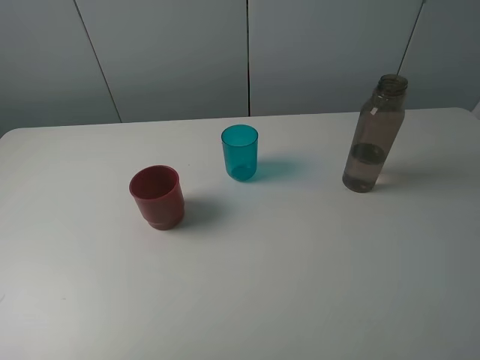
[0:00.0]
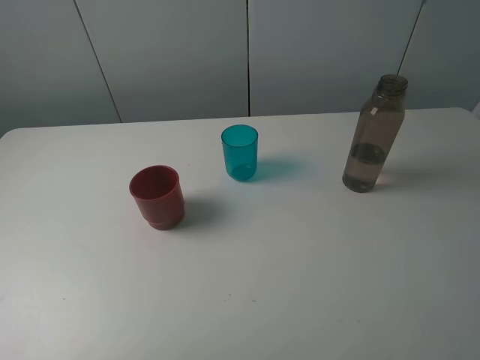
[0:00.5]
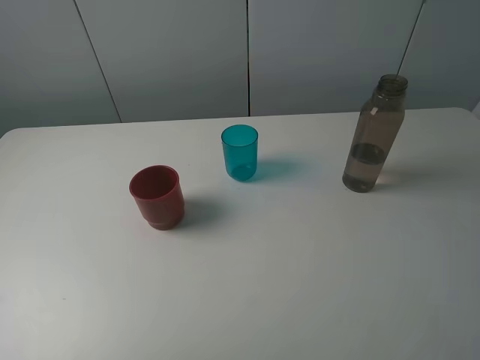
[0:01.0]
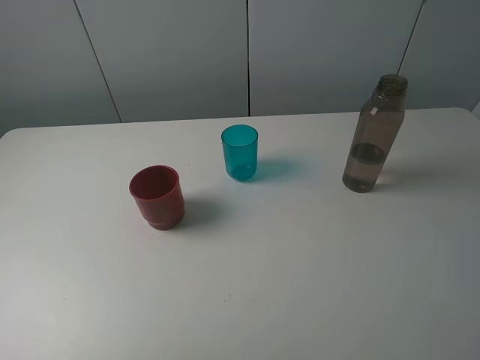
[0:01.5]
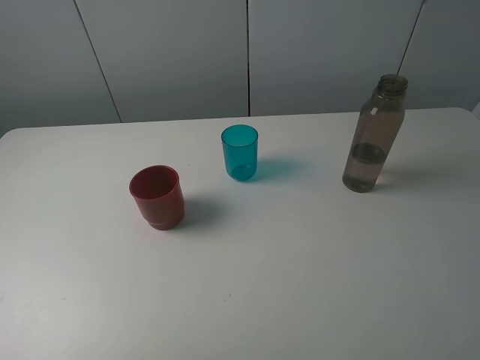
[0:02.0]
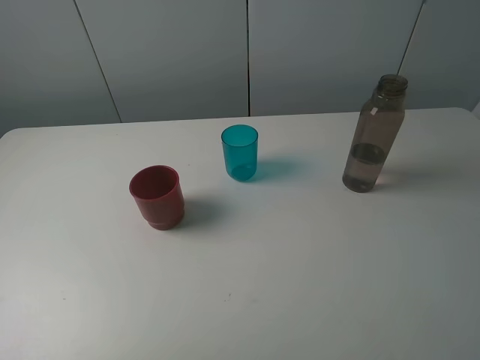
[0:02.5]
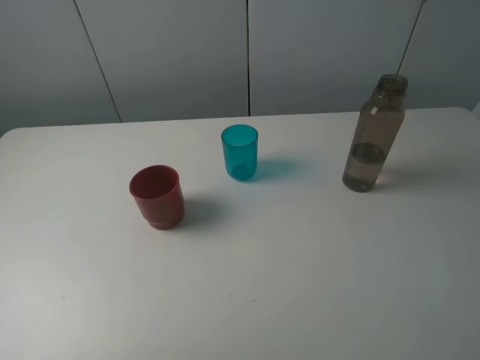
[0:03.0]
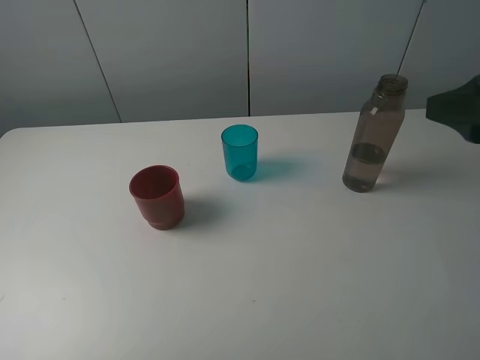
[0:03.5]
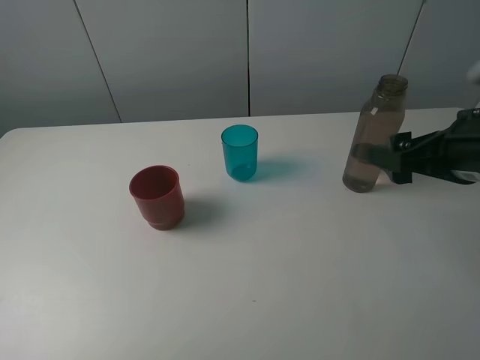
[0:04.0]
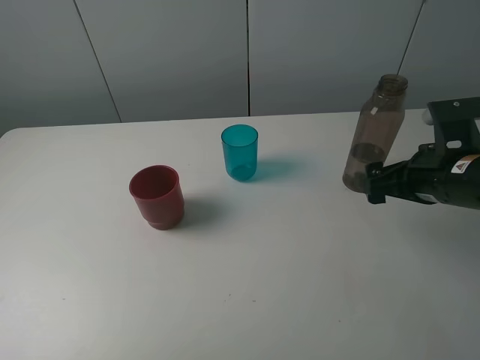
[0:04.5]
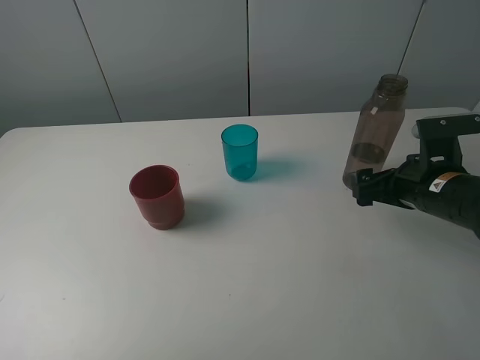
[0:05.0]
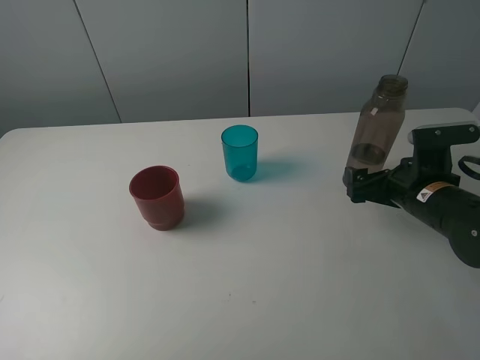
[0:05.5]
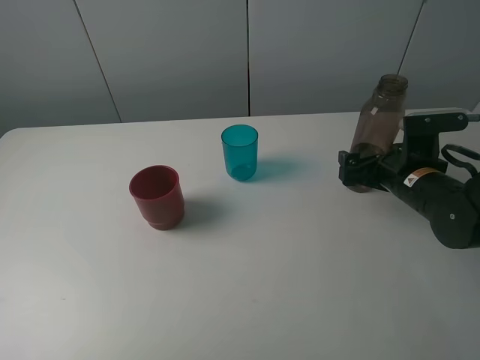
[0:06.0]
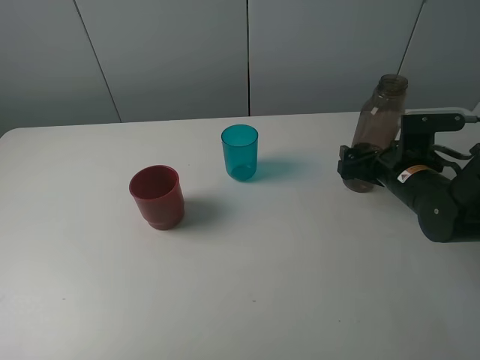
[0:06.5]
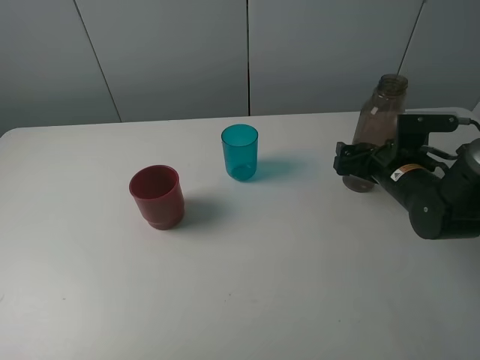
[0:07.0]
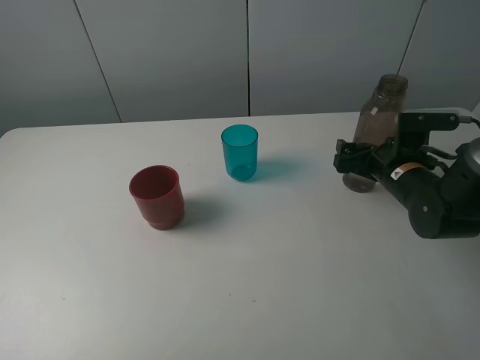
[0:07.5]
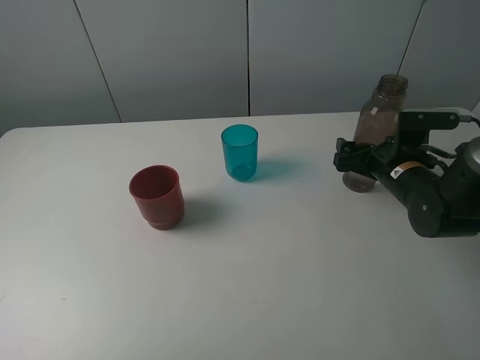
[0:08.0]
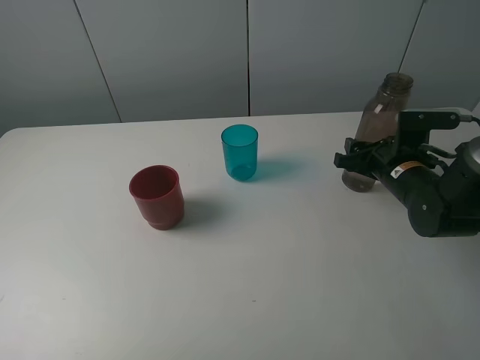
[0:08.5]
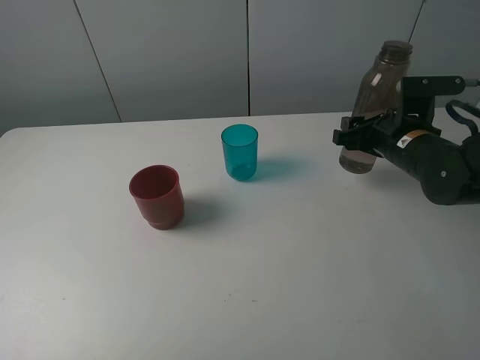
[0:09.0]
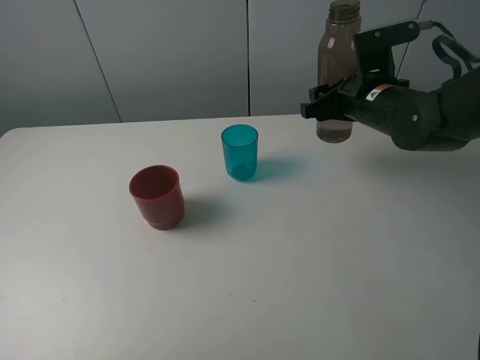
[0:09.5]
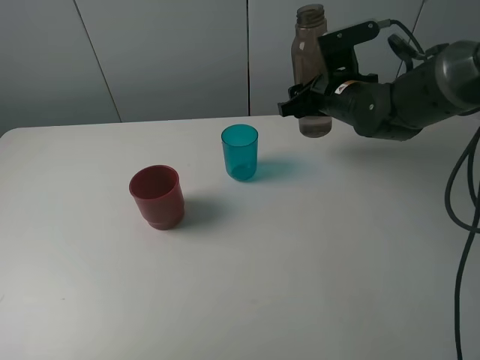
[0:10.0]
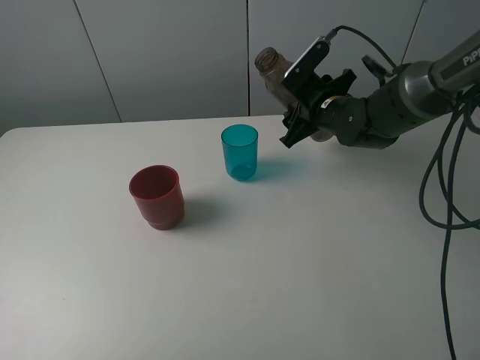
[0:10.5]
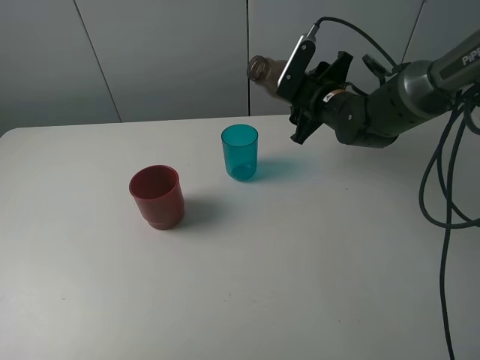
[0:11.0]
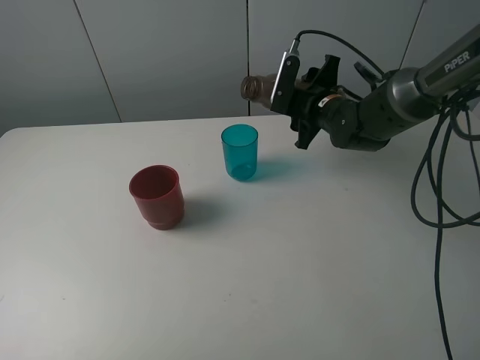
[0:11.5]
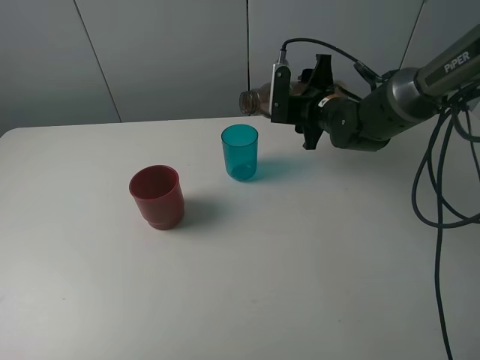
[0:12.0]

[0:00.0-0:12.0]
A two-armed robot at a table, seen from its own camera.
Task of the whole recording: pick up the bottle and pour water into the cup, then pick up the cup containing water and pour it into another cup.
Step, 0:00.0 to 0:08.5: Grasp the brown bottle with the right gripper.
0:00.0 to 0:02.0: Both grippers stay put.
0:02.0 to 0:04.0: The right gripper moves forward, approximately 20 cm.
0:04.0 to 0:06.0: The right gripper travels downward and forward by some 15 cm.
0:06.0 to 0:08.0: The grippers stay close to where they were, moving slightly.
0:08.0 to 0:10.0: The right gripper moves to the left, upward and forward, roughly 15 cm, and closes.

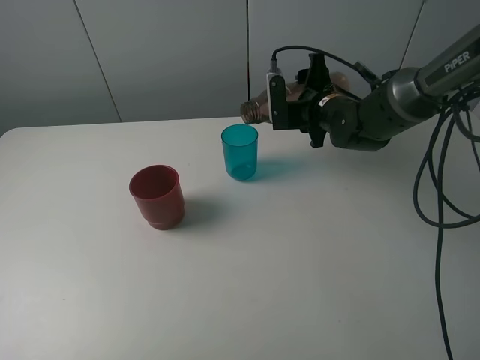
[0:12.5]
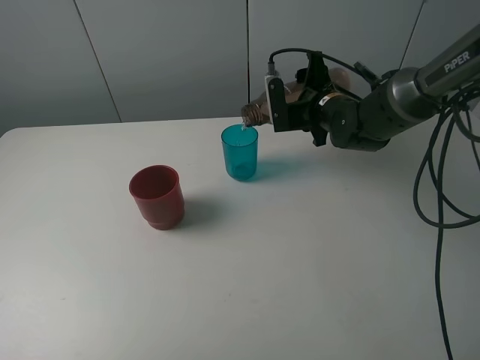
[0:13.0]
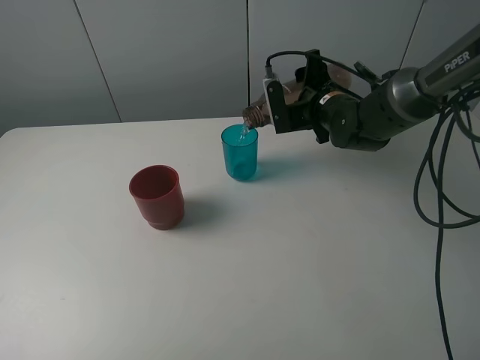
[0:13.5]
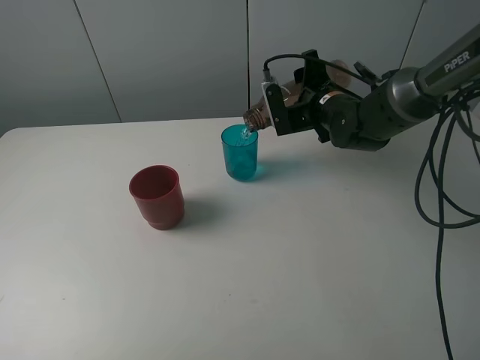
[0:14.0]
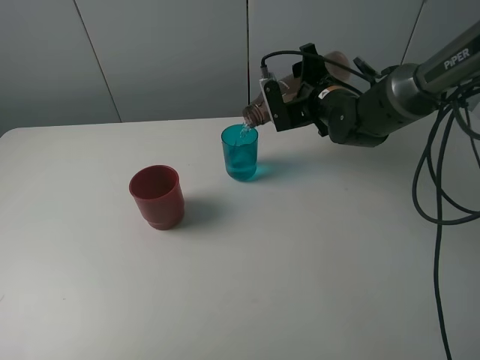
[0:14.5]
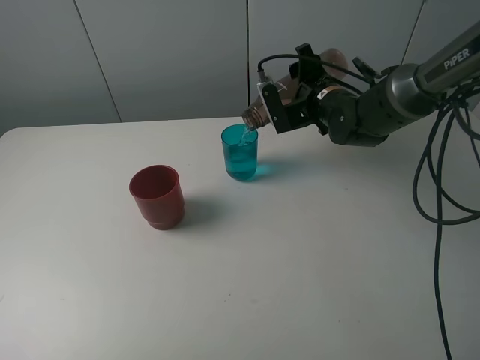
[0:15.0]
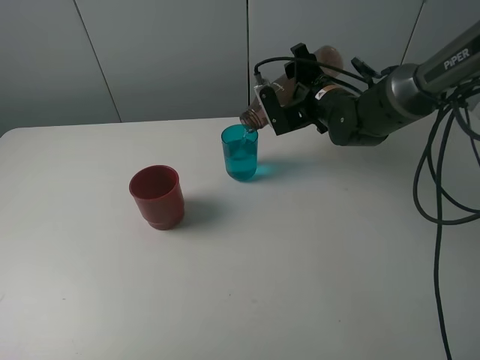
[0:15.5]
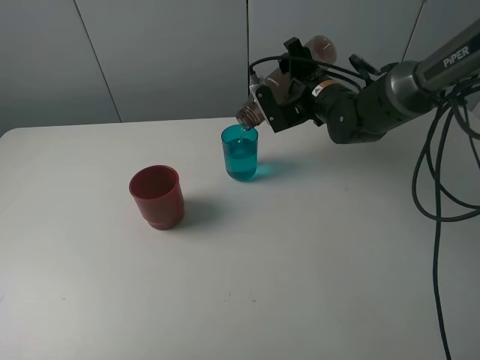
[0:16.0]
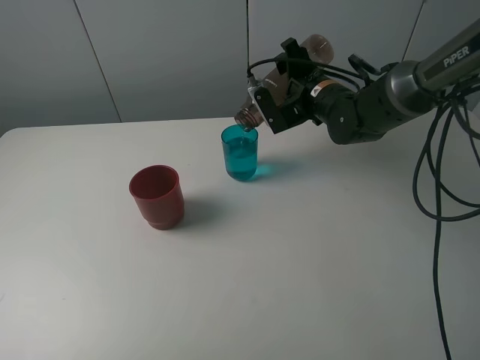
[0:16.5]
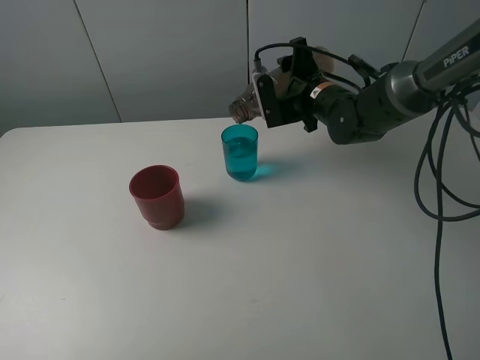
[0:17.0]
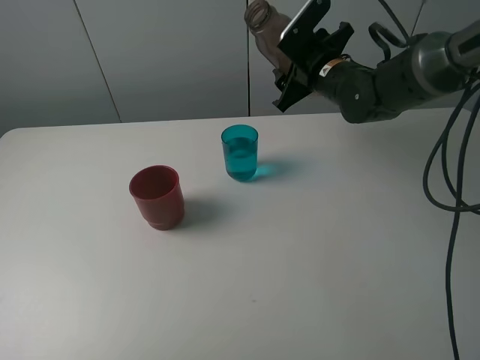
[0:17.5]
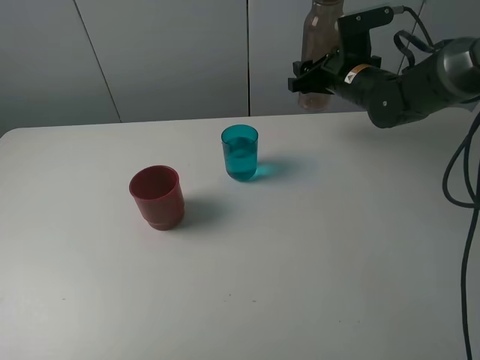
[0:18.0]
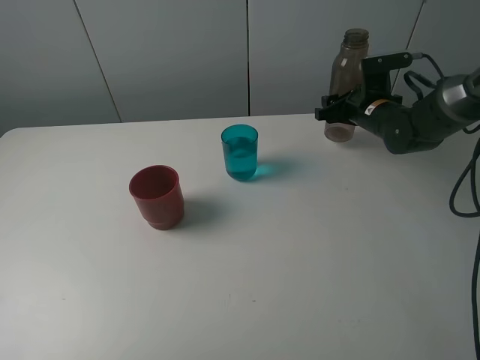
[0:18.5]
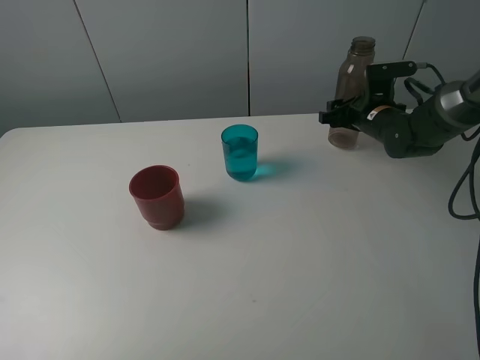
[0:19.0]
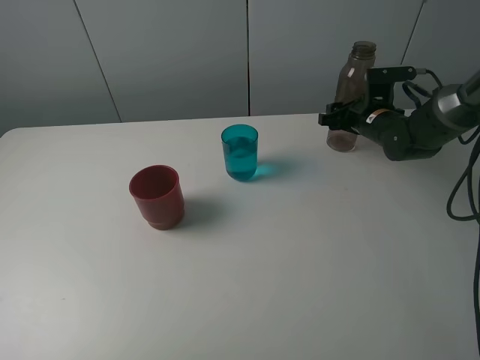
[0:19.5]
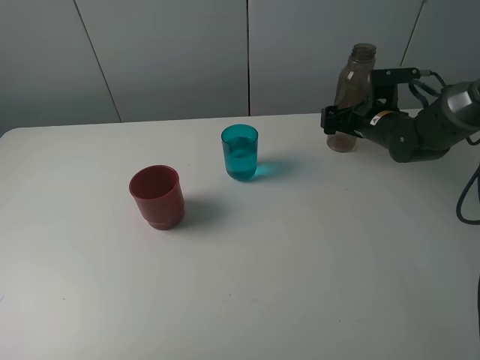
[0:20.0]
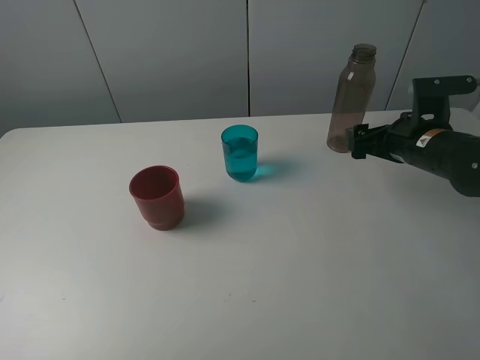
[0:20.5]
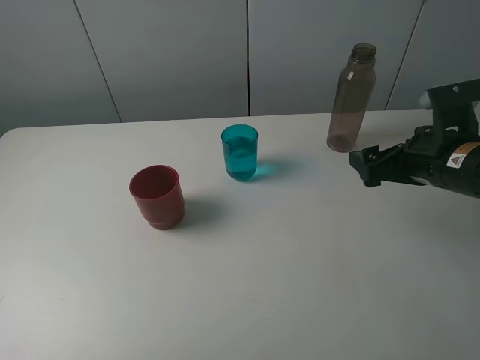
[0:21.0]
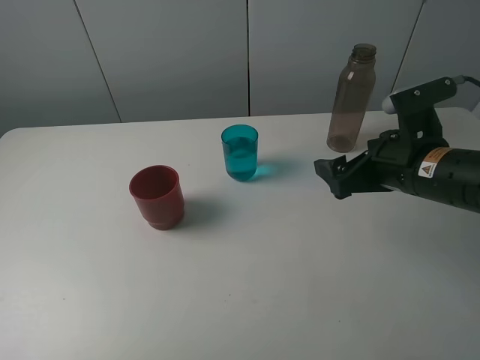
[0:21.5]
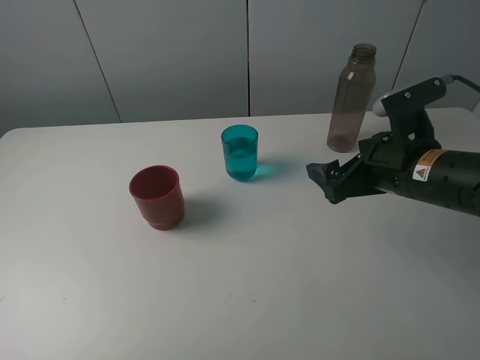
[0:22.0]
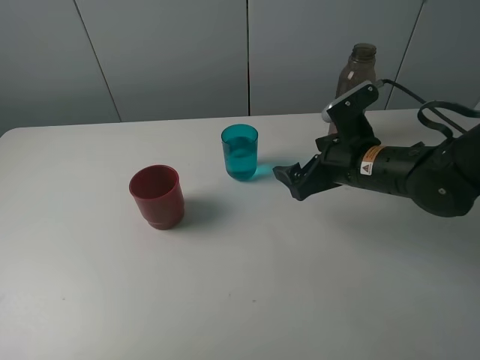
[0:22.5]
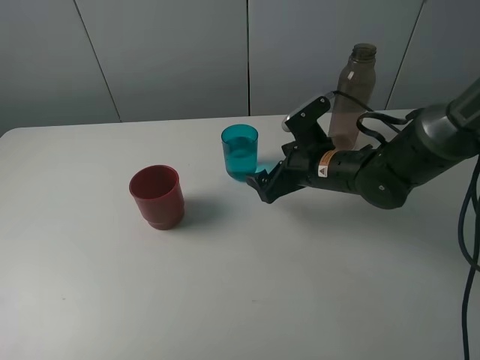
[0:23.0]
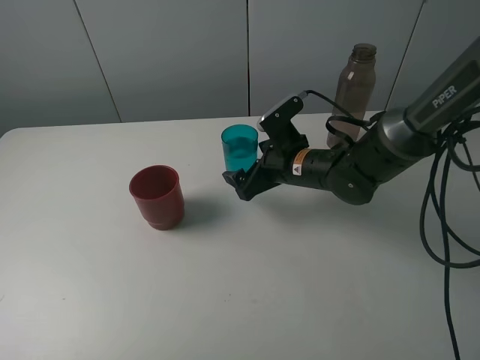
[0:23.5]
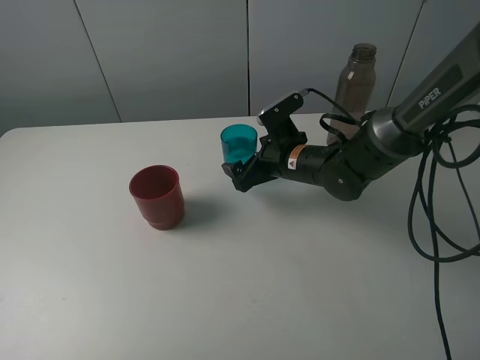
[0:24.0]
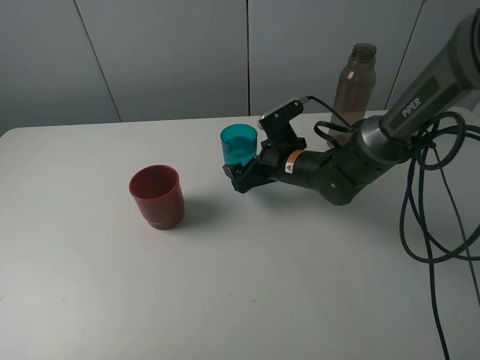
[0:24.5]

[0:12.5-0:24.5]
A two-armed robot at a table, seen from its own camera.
Task of the whole recording: pick up the bottle and pour water into the cup, then pick up the cup containing water and pour it into another cup.
Step, 0:12.5 to 0:17.0: Pour water from brown bottle to blue cup with the right gripper.
Step, 0:17.5 to 0:20.0: Place the brown bottle with the right gripper.
0:12.5 to 0:14.5: The grippers move only a little.
0:14.5 to 0:16.5: The grippers make only small movements.
0:16.5 to 0:18.5: The right gripper is displaced to the right by approximately 10 cm.
0:18.5 to 0:20.5: The right gripper moves backward, some 15 cm, and opens its fingers.
0:20.5 to 0:22.5: The right gripper goes approximately 10 cm to the left.
0:22.5 to 0:24.5: The right gripper travels to the left, forward and downward by some 10 cm.

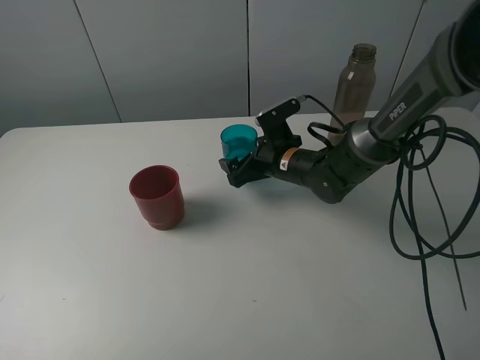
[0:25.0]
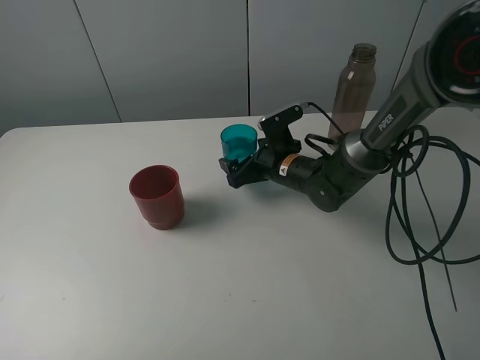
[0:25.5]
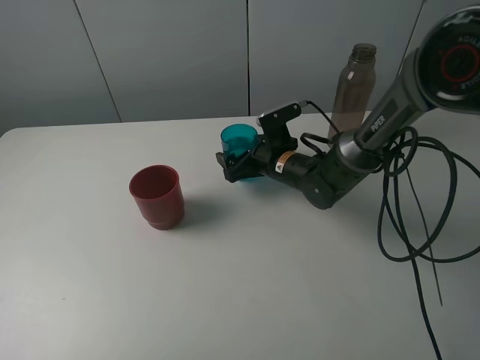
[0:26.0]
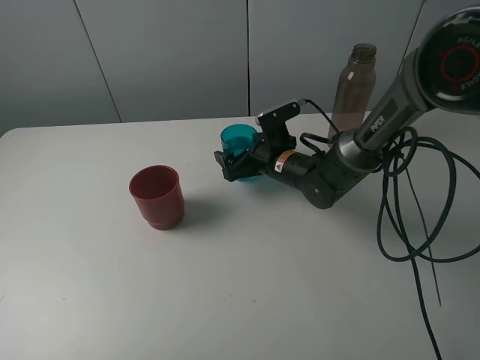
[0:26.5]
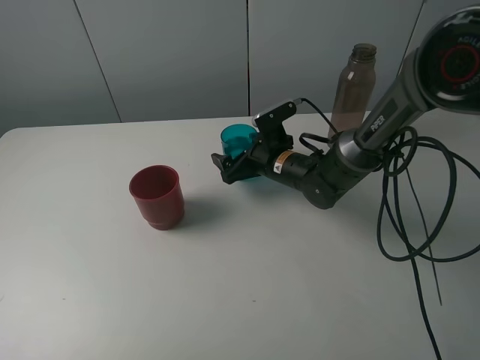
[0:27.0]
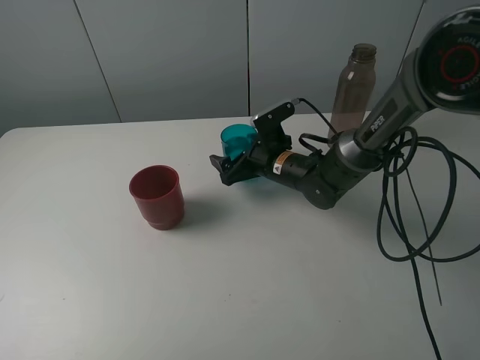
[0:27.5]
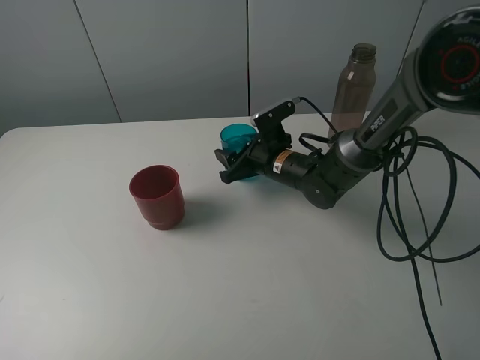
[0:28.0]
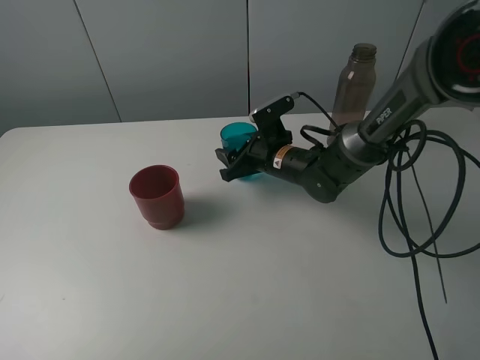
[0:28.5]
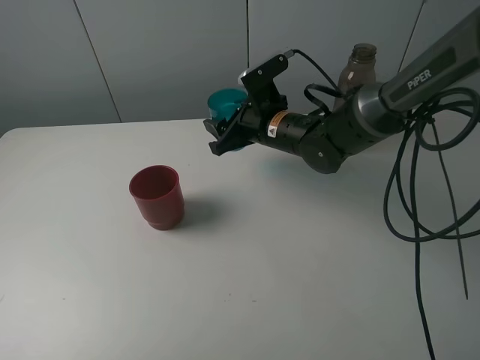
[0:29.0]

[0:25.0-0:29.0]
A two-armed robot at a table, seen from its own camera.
Task of the whole recording: pick up the bottle and pour water into the cup, then pick up the cup containing water and pour it into another cup.
Step, 0:25.0 to 0:28.0: Grasp the blue cup with the right gripper.
0:25.0 to 0:27.0: The grippers make only small movements.
0:27.0 to 0:29.0: The right gripper travels upward by about 10 cm, and closes its fingers.
